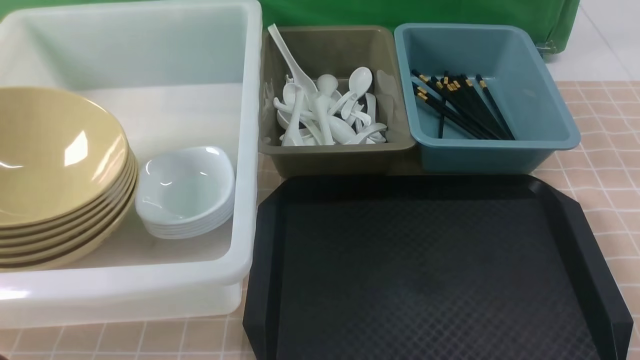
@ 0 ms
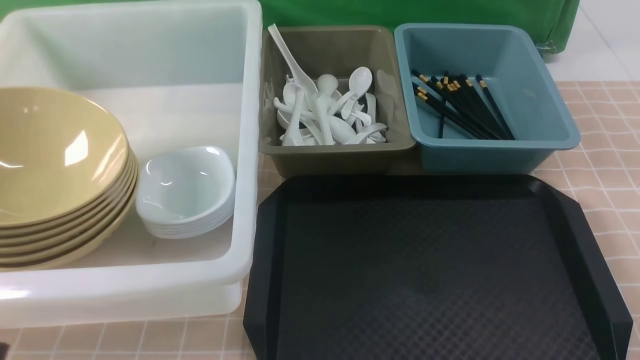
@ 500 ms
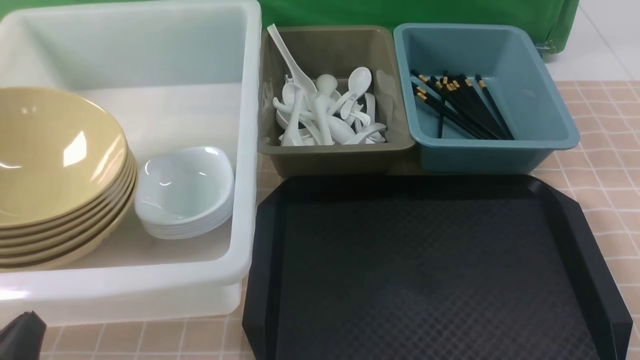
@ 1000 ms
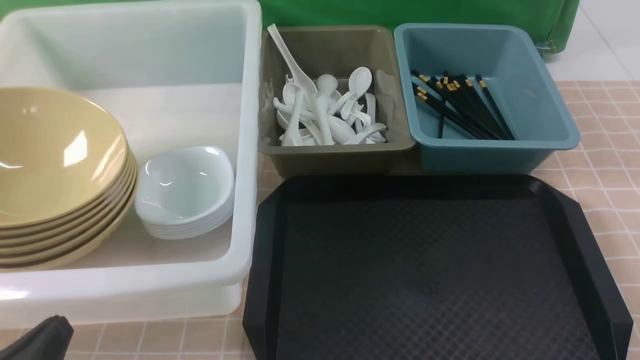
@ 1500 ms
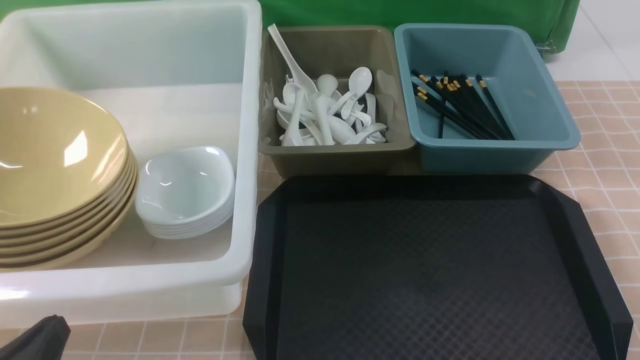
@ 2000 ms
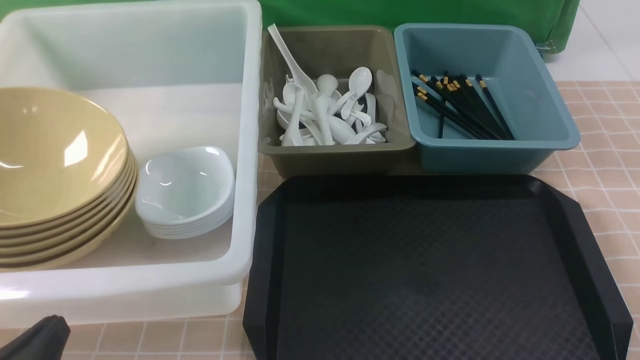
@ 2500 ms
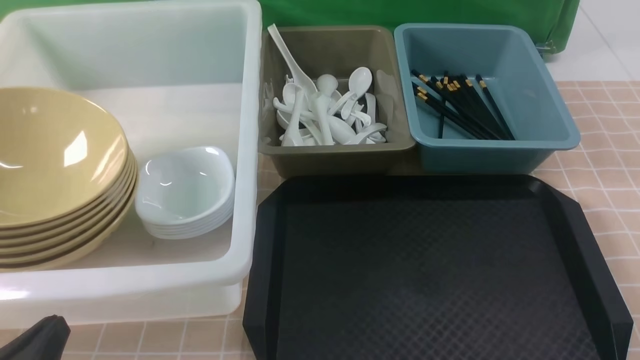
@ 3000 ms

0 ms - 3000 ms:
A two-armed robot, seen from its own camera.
Task of the whole recording: on brown table put chopsticks spoon bowls plates into blue grey white boxes.
0 ms - 1500 ms: The left gripper heads downward, covering roughly 10 cm.
1500 ms - 3000 ms: Both grippers stay put.
